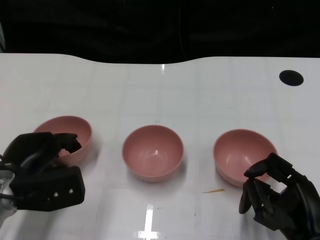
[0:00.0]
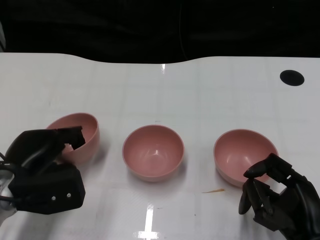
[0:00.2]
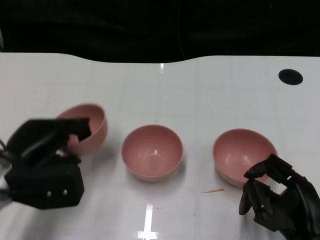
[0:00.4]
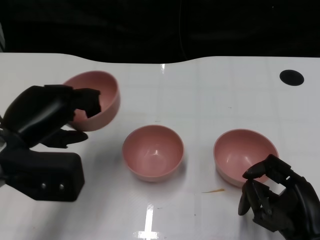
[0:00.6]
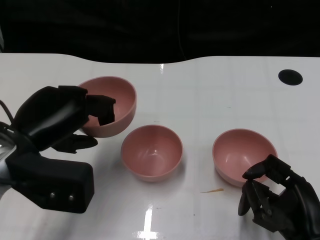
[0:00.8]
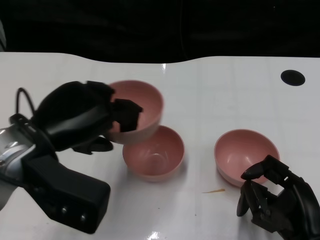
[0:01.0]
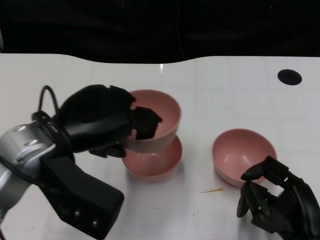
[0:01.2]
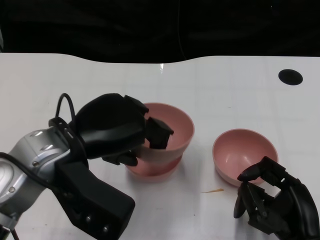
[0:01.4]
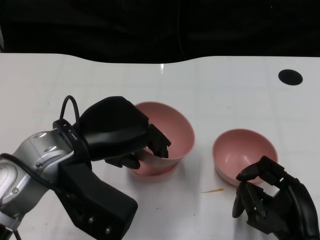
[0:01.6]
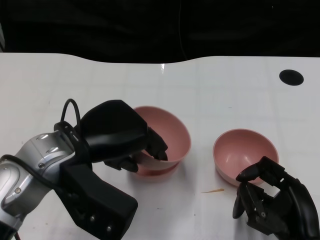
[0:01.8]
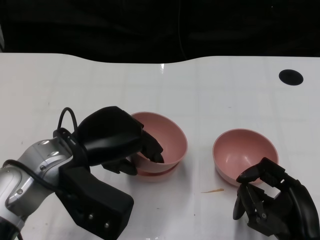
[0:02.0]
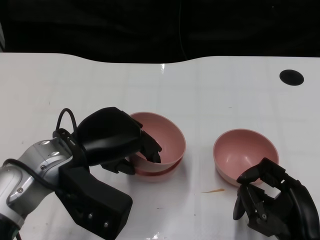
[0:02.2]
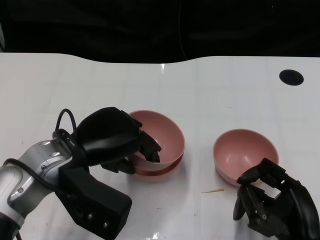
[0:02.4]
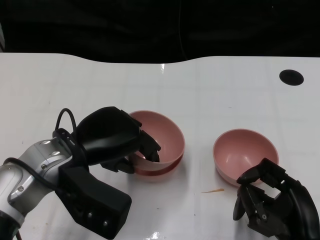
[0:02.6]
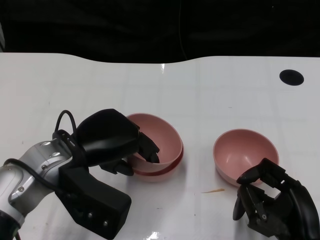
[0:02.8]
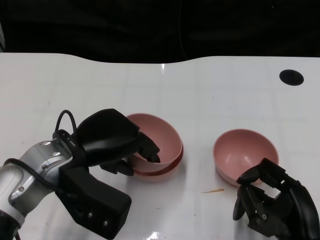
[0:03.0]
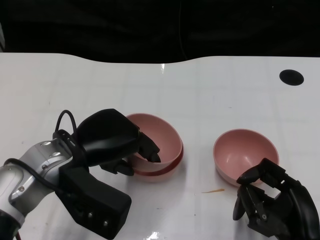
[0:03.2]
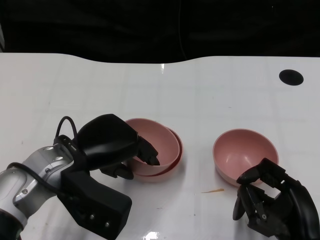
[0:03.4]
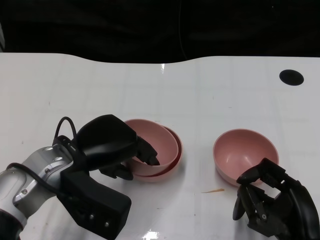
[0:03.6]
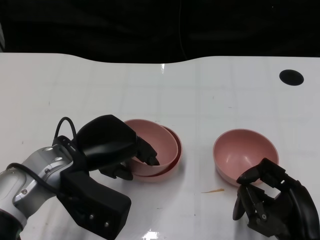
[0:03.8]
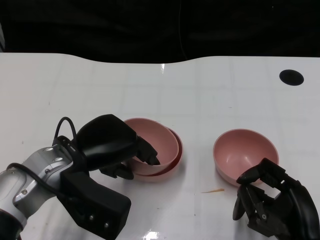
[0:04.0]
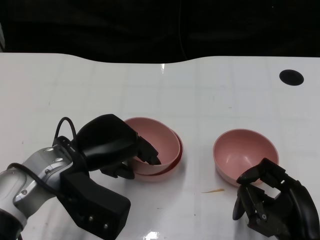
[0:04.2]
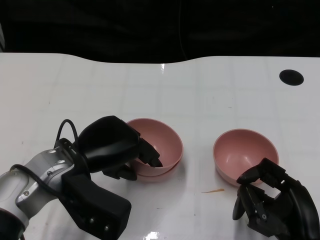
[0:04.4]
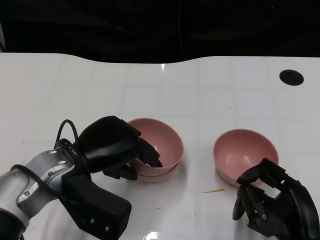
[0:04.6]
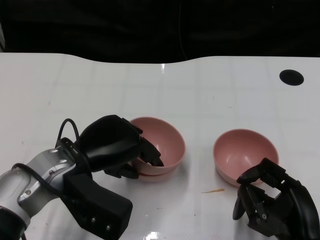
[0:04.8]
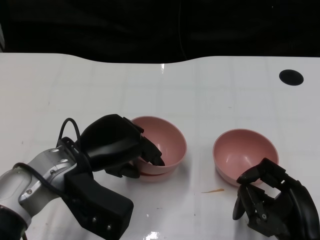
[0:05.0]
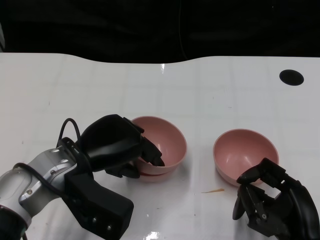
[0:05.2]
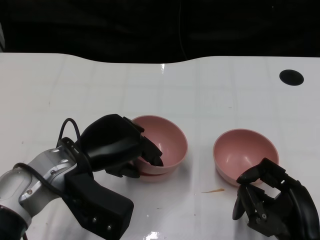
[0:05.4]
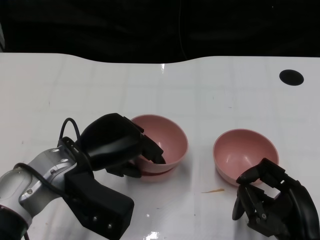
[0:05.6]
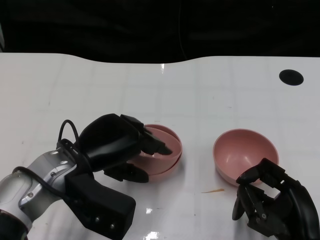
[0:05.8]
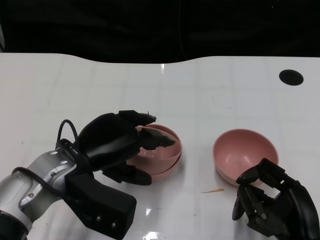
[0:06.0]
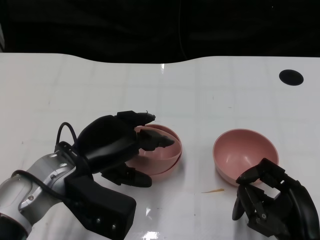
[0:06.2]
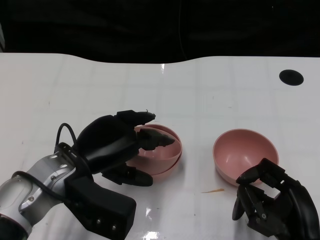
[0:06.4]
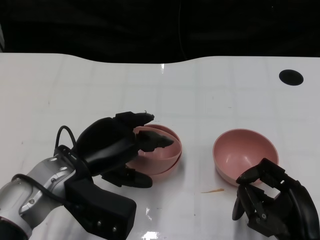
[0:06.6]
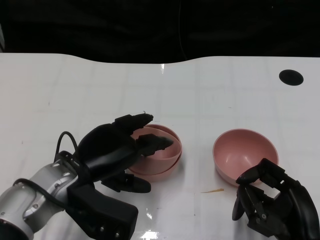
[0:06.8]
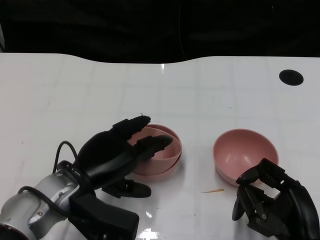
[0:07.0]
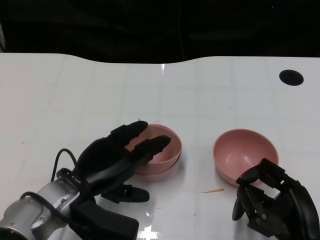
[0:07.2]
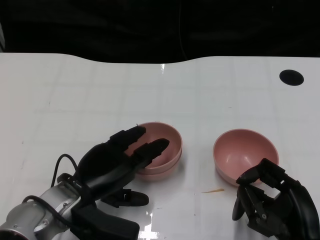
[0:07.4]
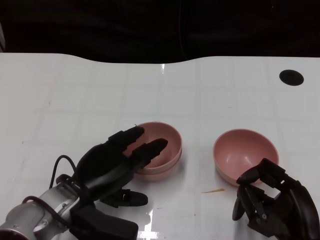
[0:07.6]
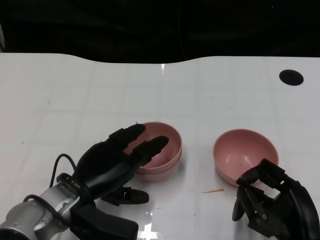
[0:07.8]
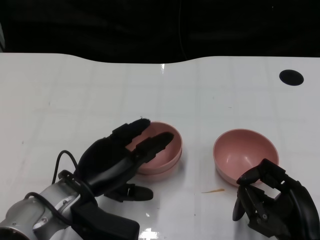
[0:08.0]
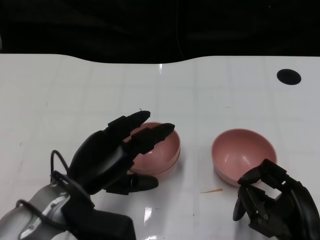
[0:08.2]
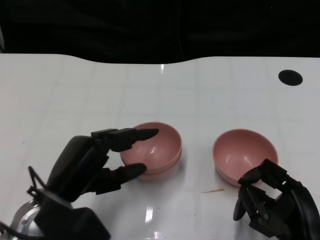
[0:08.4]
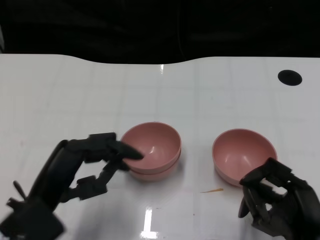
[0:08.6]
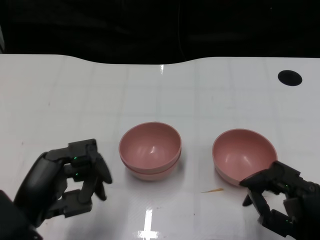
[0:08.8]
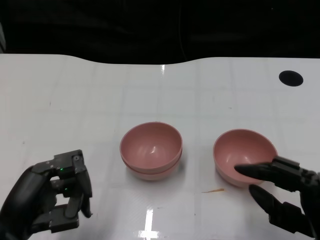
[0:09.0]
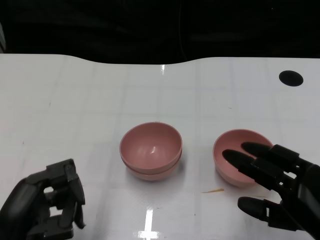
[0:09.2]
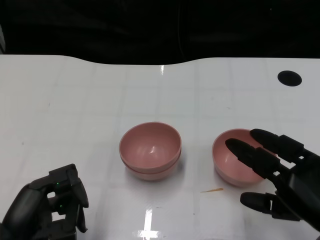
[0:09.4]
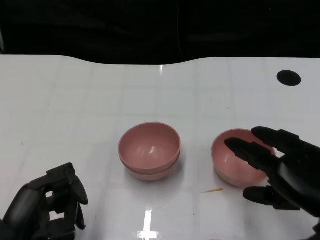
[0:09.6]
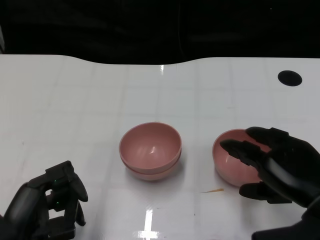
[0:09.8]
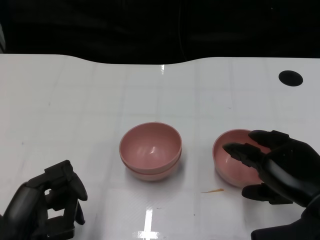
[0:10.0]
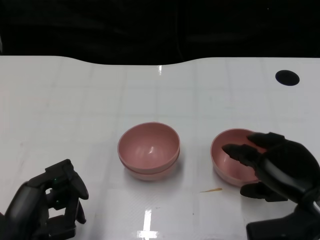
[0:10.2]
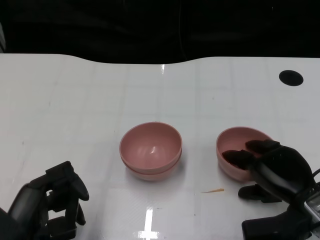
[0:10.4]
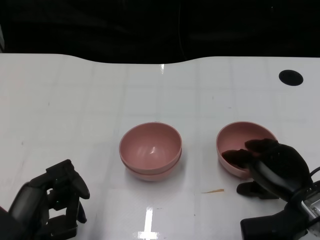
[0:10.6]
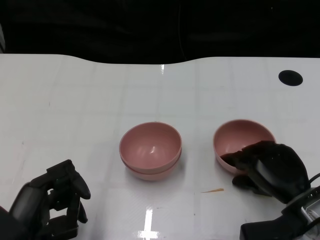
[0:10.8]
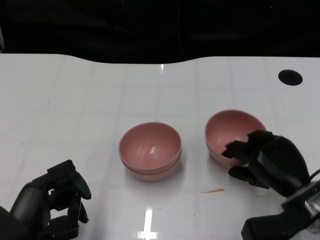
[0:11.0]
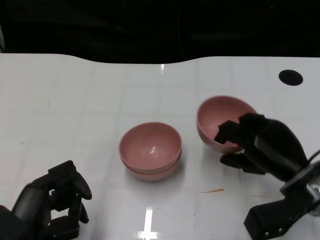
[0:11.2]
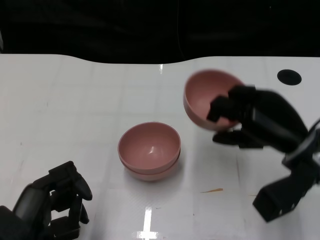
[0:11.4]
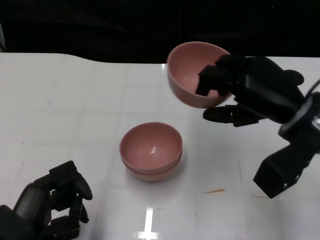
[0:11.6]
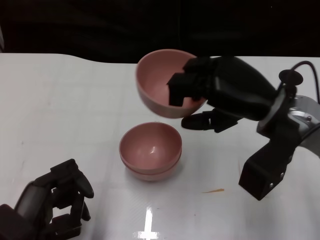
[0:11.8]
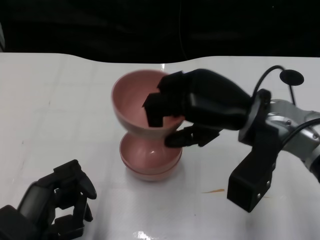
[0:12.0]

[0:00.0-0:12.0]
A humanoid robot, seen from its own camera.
Task of the whole recording: Pick up the bowl on one side of the table and place it on top of the middle bowl, then pick up the bowl on the other side of the table and place it on top of the middle bowls.
Step, 0.4 to 8.0 s: Place the bowl on the left onto the bowl in the middle with left gripper.
Step, 8.2 to 11.0 s: Grasp the bowl on the right with the right gripper.
0.0 to 1.6 s: The left hand goes approximately 15 cm upward and to the right.
1.6 to 3.0 s: There are only small adjustments of the hands.
3.0 to 4.4 s: The hands stay close to where they were, moving slightly.
4.4 to 6.0 s: Both hands stay put.
6.0 to 7.6 s: The left hand travels downward by about 5 cm.
7.6 to 9.0 s: The left hand heads backward and to the left, covering roughly 10 cm.
9.0 to 10.4 s: The right hand shifts about 10 cm forward.
10.4 to 12.0 s: The right hand goes approximately 15 cm upward, to the left and forward.

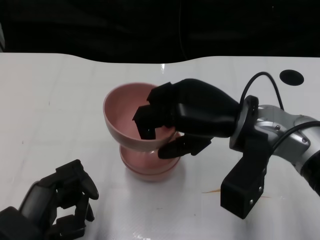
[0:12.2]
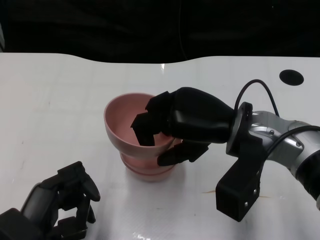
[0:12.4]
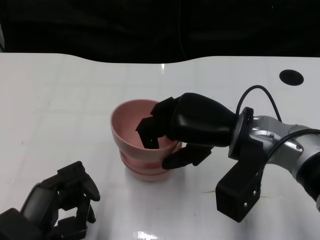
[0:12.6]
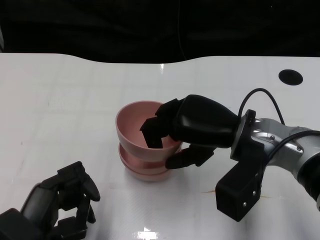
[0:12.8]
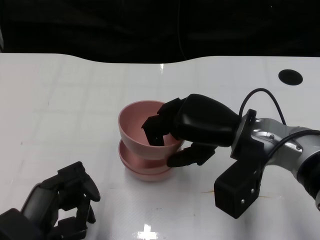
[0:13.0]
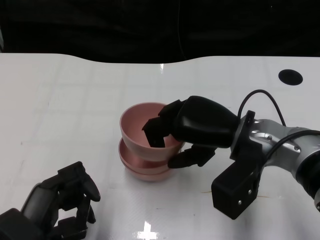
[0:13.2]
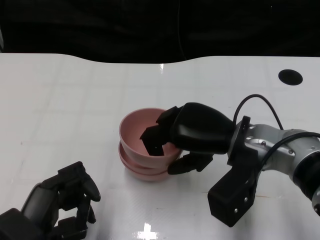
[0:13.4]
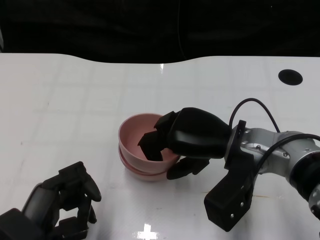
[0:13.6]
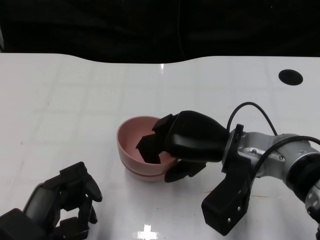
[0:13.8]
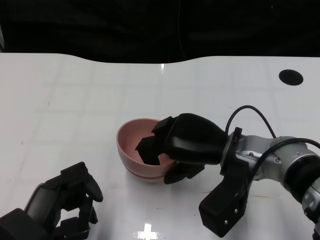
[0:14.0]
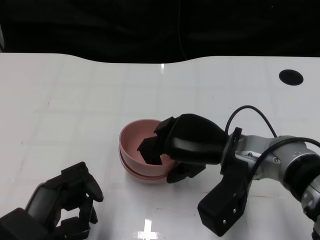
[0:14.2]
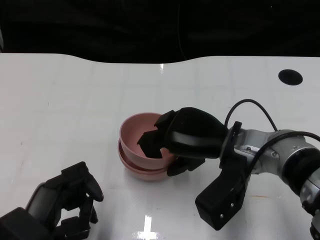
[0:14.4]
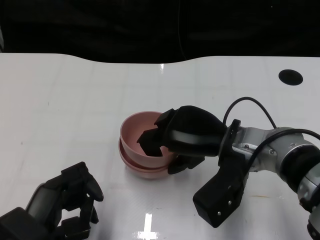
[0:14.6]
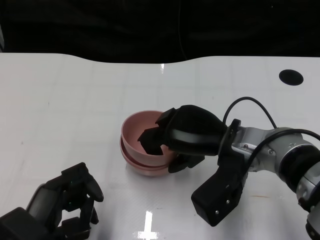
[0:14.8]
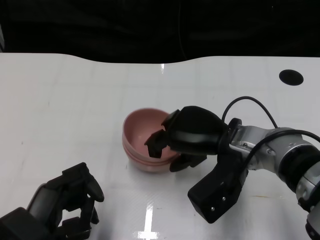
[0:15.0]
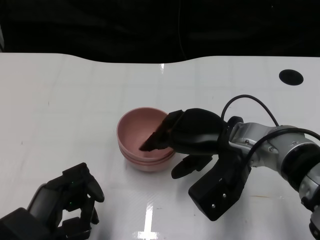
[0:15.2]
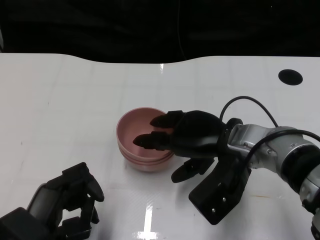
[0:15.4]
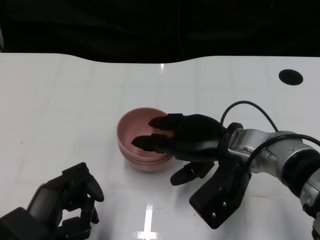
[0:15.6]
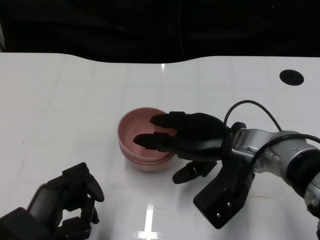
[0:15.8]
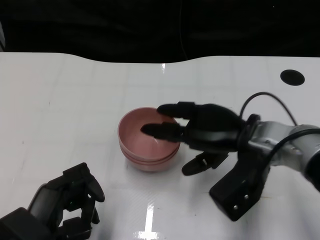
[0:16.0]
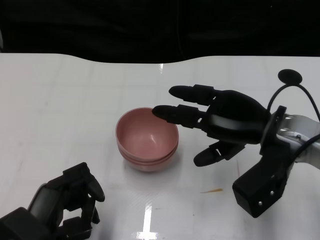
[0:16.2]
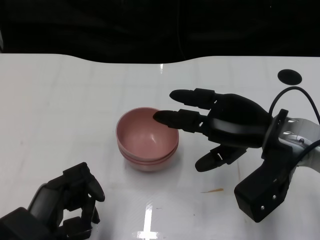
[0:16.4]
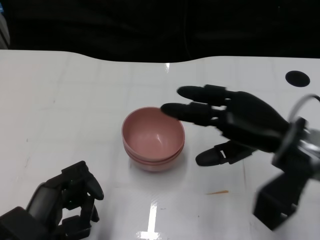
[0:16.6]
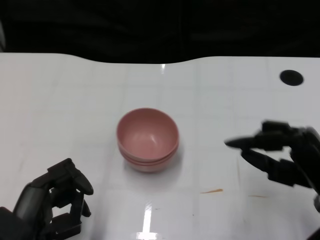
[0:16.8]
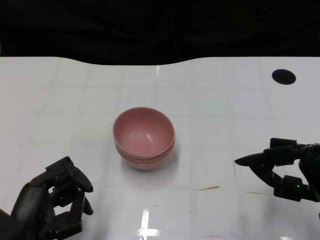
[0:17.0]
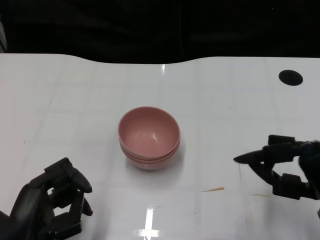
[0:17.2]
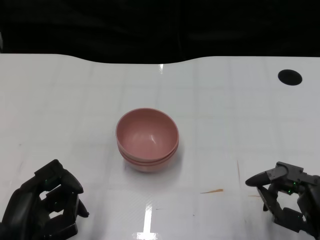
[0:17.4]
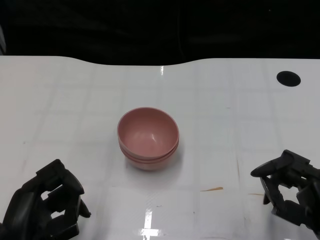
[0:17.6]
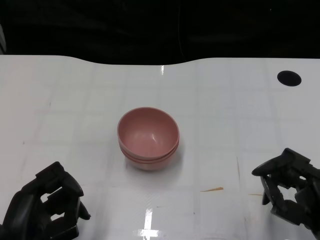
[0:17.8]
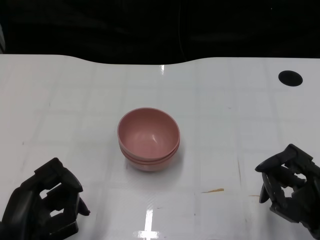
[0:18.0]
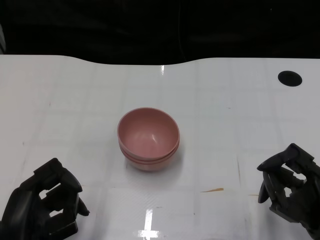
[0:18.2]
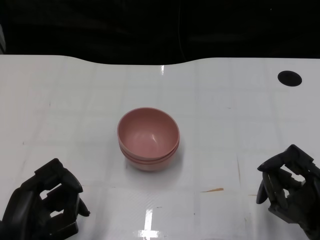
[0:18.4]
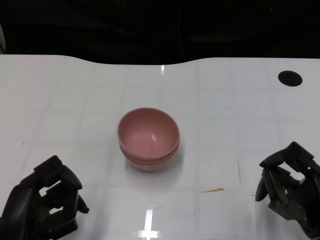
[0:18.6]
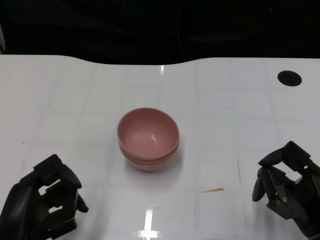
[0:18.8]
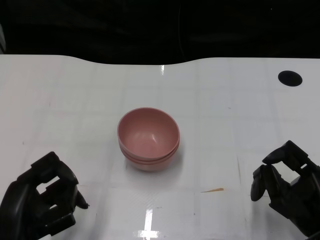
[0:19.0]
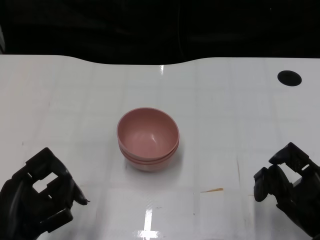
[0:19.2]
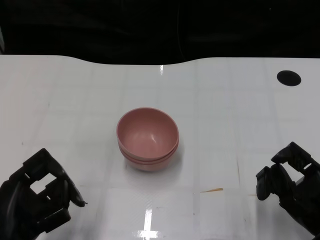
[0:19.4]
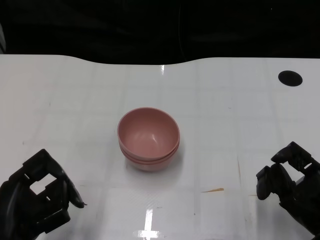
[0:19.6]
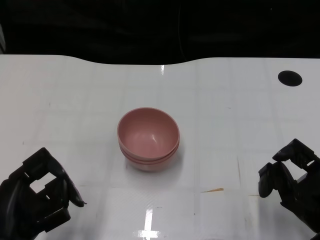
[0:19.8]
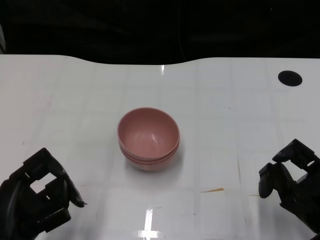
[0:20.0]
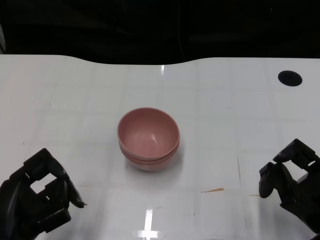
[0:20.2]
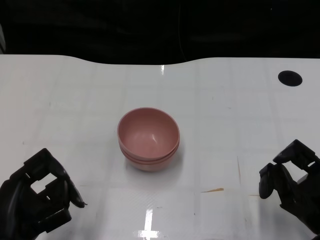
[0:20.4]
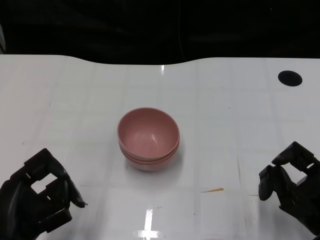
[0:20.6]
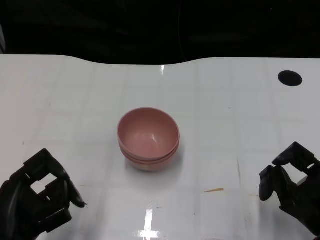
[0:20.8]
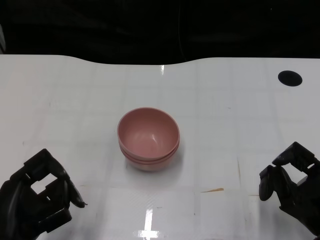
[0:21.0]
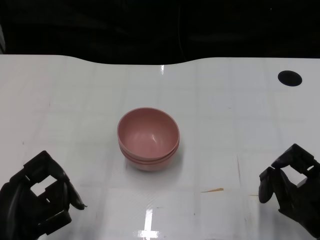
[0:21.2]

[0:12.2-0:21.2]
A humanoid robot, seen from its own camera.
Task of the whole recording: Pick up the bowl on one side of the table and place it on top of the middle bowl, then pick up the bowl on the other side of the table and place it on top of the middle bowls.
Step, 12.2 to 16.0 s: Place the bowl on the right onto the bowl in the middle with right gripper.
12.2 to 13.8 s: The right hand heads downward, covering approximately 5 cm.
13.8 to 15.2 s: The hands stay close to where they were, moving slightly.
15.2 to 16.6 s: The right hand heads to the right, covering about 5 cm.
16.6 to 18.2 s: The right hand travels backward, downward and to the right by roughly 15 cm.
19.8 to 21.2 s: The two hands keep their place.

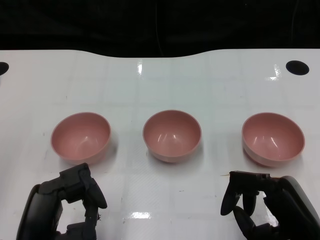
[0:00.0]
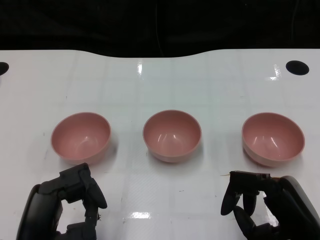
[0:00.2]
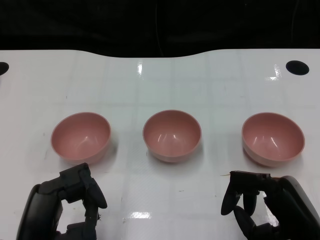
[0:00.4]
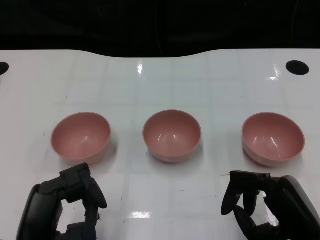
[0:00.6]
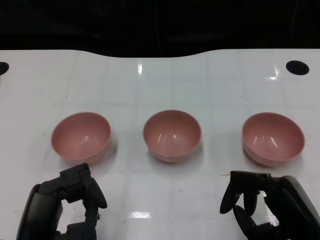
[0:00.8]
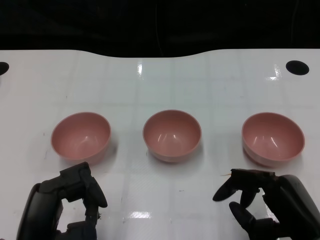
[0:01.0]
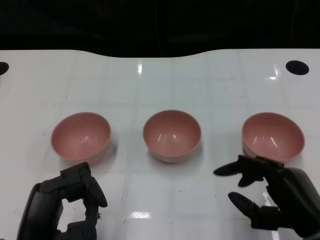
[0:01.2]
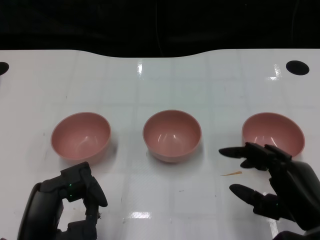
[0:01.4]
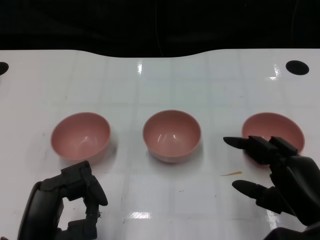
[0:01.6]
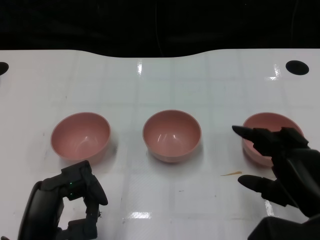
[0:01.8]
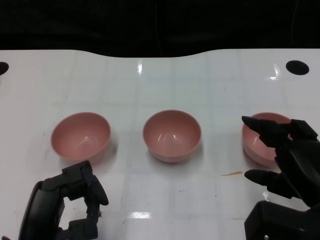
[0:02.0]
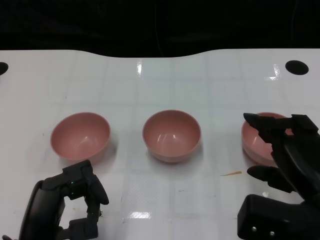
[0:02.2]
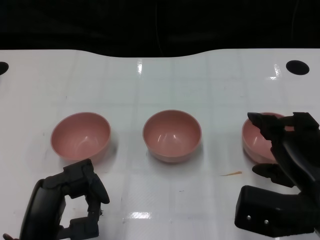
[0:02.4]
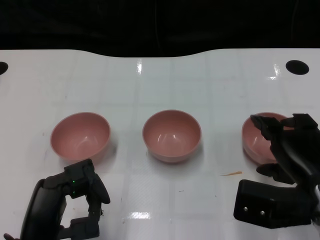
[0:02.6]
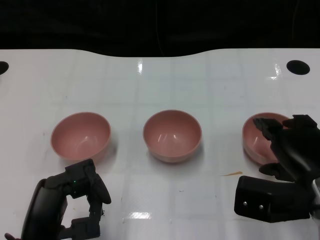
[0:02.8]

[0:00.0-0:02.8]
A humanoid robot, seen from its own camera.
Task of the whole recording: Pick up the bowl on one side of the table and place it on top of the middle bowl, then pick up the bowl on the other side of the table and place it on top of the middle bowls.
1.4 to 2.8 s: The right hand travels forward by some 5 cm.
